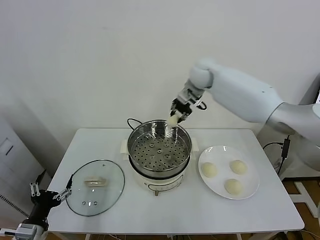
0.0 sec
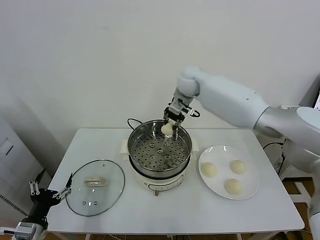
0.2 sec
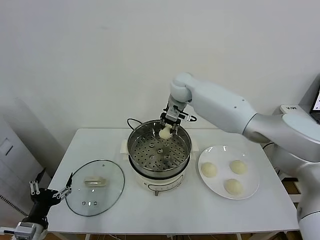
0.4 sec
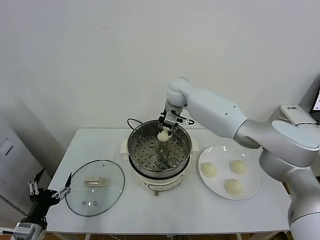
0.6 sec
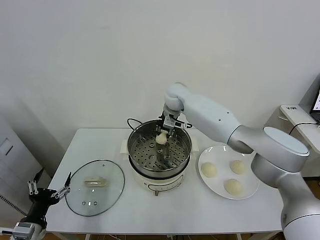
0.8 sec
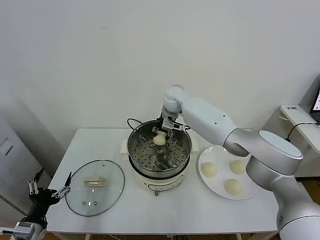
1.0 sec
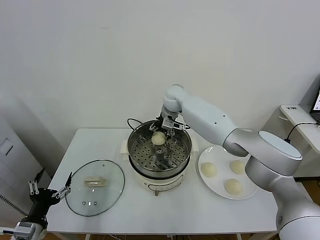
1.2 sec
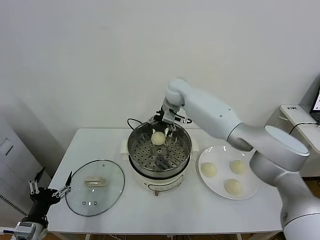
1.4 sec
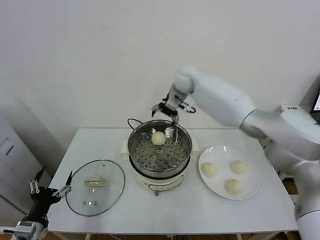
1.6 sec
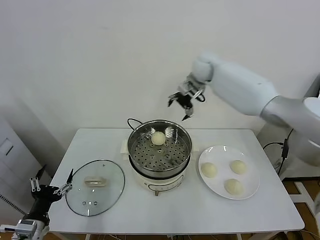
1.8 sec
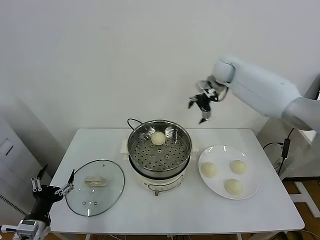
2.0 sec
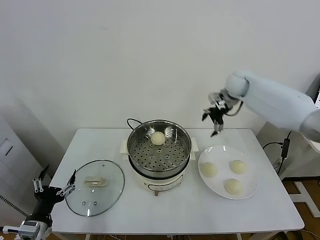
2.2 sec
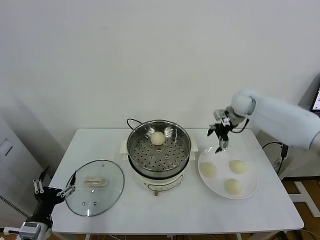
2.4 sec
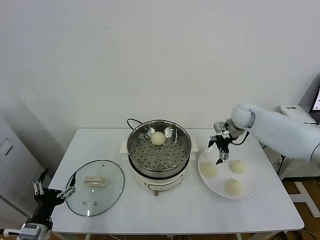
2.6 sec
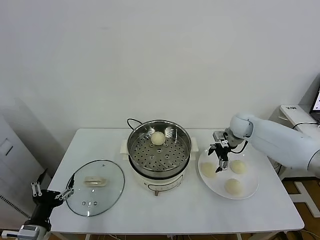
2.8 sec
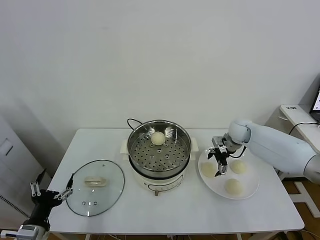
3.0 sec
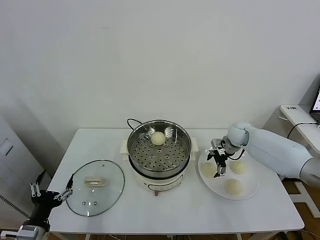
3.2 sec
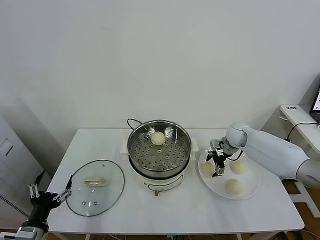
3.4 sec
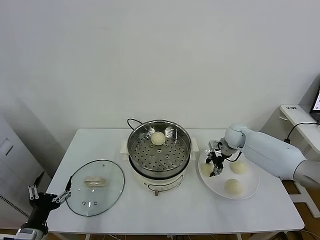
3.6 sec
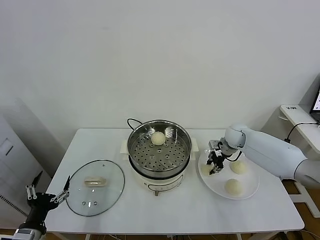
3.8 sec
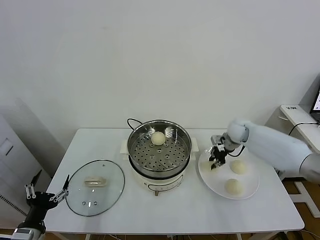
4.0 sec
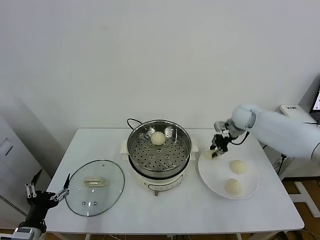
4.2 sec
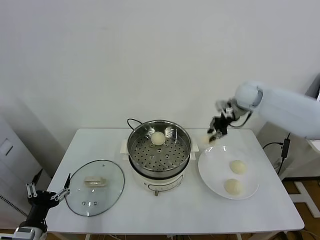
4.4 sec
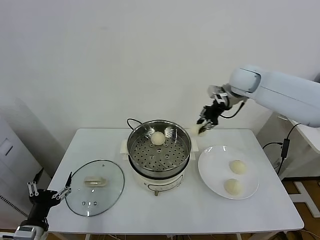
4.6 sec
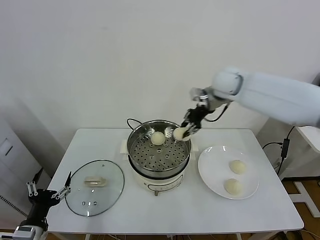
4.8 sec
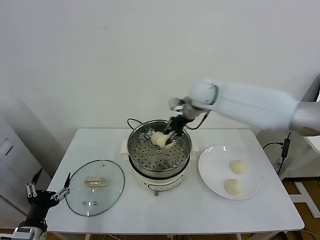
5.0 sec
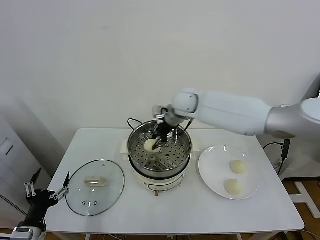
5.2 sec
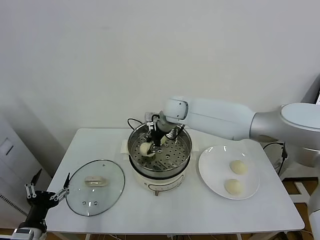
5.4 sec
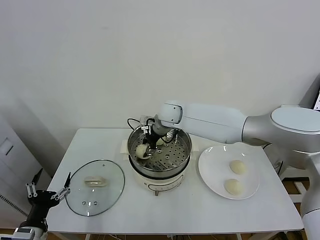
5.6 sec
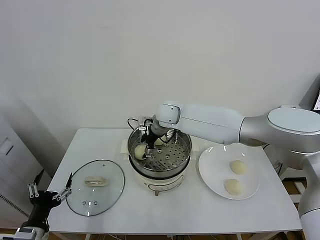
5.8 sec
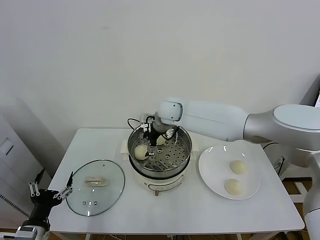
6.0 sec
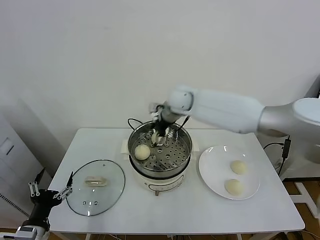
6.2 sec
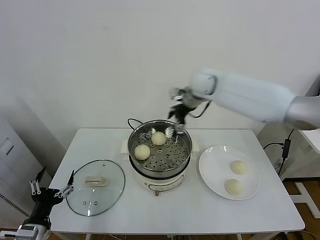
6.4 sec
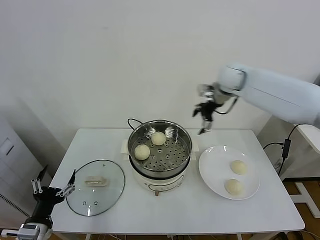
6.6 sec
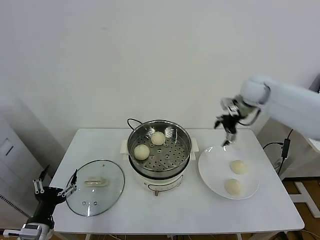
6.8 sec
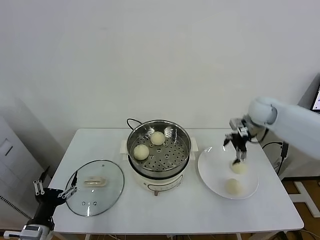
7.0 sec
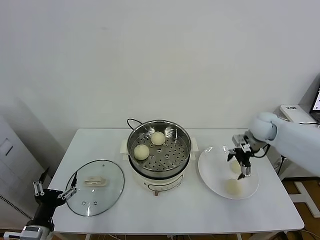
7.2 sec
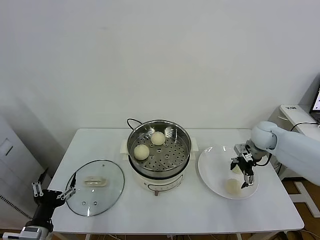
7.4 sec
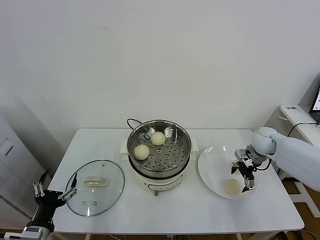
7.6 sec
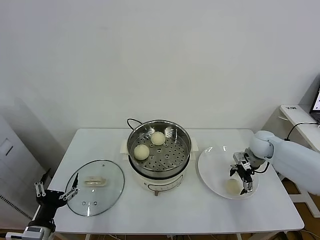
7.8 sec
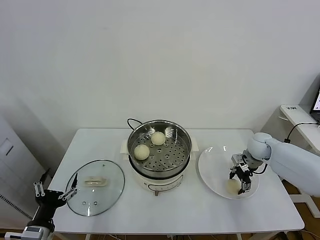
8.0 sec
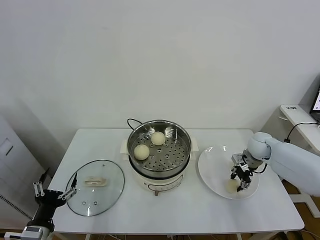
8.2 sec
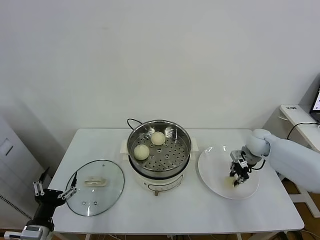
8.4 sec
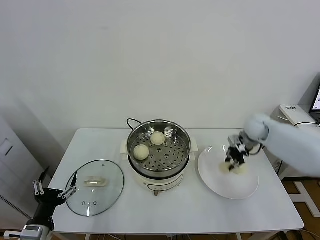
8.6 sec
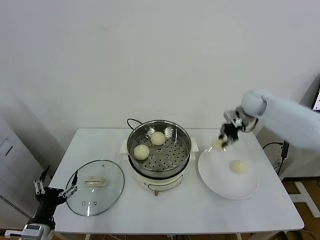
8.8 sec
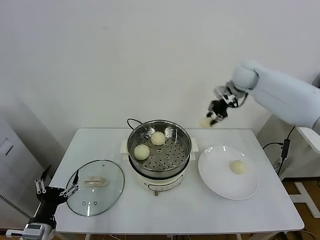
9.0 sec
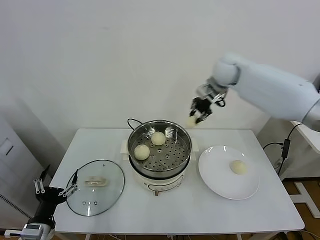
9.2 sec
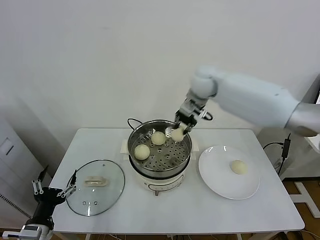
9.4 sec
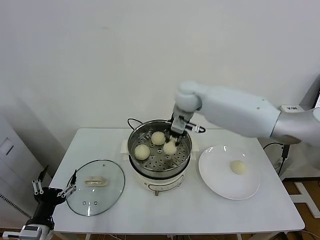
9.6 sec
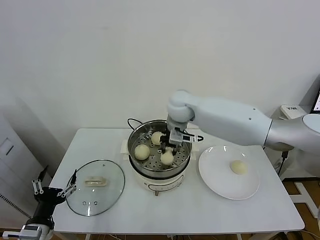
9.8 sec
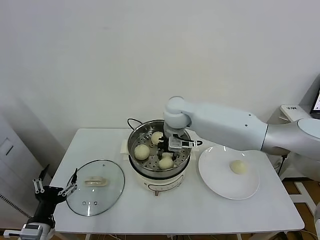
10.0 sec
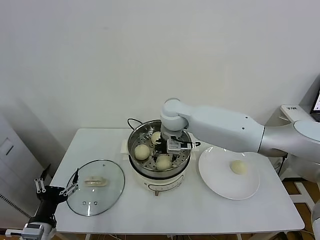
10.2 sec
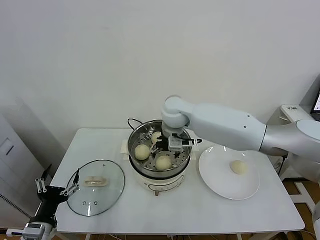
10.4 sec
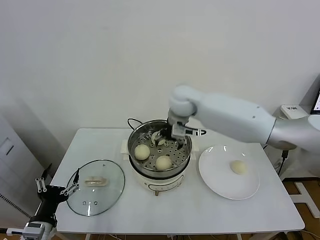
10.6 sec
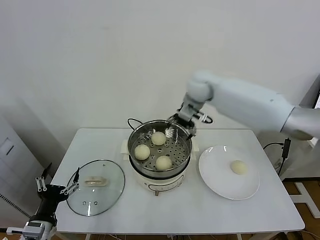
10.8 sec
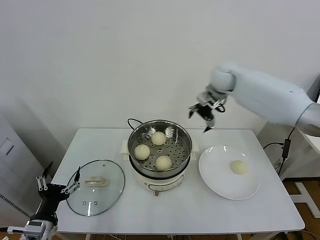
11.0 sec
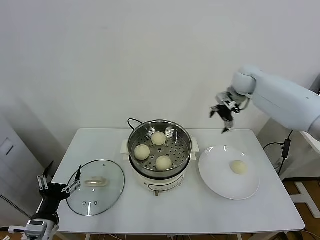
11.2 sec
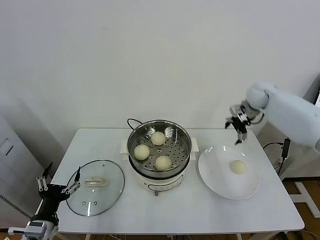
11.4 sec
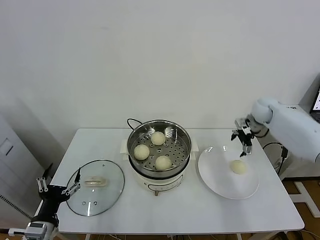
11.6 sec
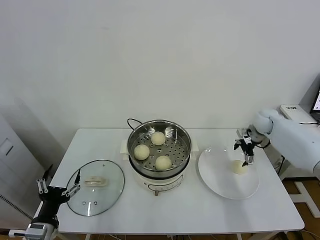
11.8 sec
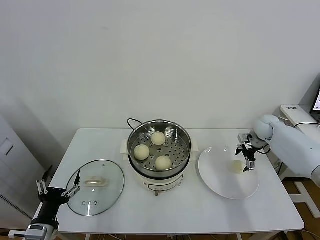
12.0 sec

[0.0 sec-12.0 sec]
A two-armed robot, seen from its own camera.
Task of the whole recording: take steamed baozi put them in steamer.
Step, 0.0 sec to 1.4 sec: Place the baozi on the steamer with right gripper.
Step, 1.6 sec to 3.6 sec: Grasp the baozi in the plate with right gripper.
Step, 3.8 sec to 6.0 sec: Place the baozi on the steamer with right gripper.
Step, 6.2 sec to 8.0 sec: Grasp the baozi in the plate with right gripper.
Step, 8.4 sec to 10.4 sec: Place the baozi on the steamer with right gripper.
0.0 sec to 1.6 sec: The right gripper moves about 10 cm downward and comes back, and opens.
1.6 sec to 3.0 sec: The right gripper travels downward and to the right by about 30 cm.
3.0 sec to 4.4 sec: The right gripper heads upward, covering some 20 cm, and closes.
4.4 sec to 6.0 sec: The right gripper is displaced to the left by about 25 cm, and opens its fingers.
6.0 sec to 7.6 sec: The right gripper goes about 35 cm to the right.
7.6 sec to 9.0 sec: The right gripper is displaced upward, to the left and forward by some 30 cm, and closes up.
9.0 sec to 10.4 sec: The right gripper shifts some 25 cm to the left and backward, and opens its fingers.
10.4 sec to 12.0 sec: The right gripper moves to the right, some 40 cm.

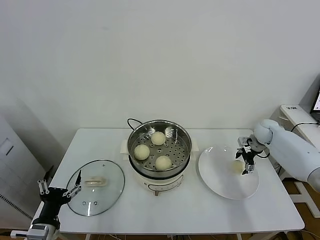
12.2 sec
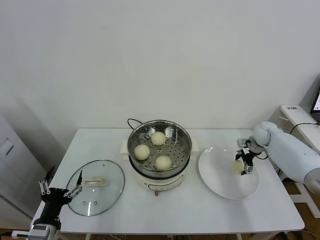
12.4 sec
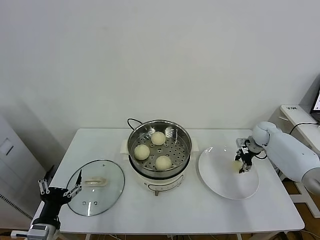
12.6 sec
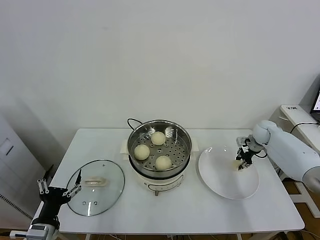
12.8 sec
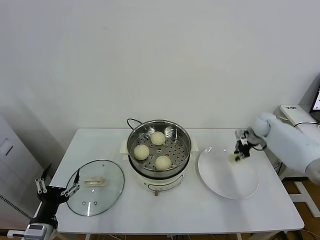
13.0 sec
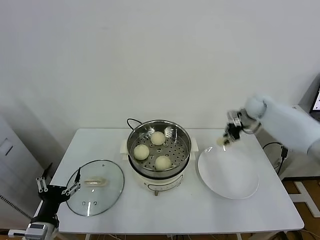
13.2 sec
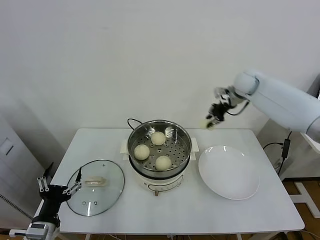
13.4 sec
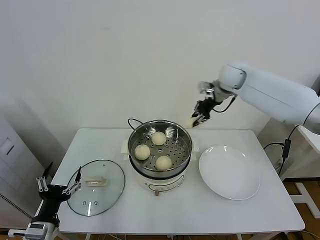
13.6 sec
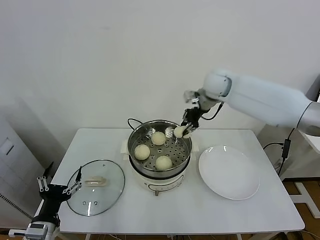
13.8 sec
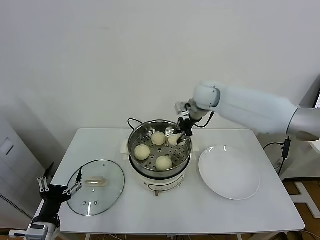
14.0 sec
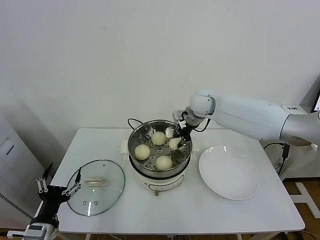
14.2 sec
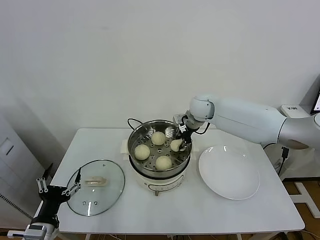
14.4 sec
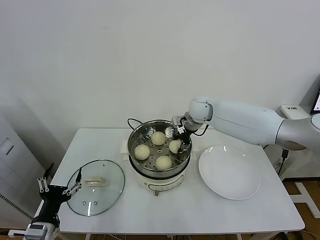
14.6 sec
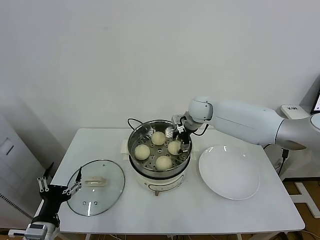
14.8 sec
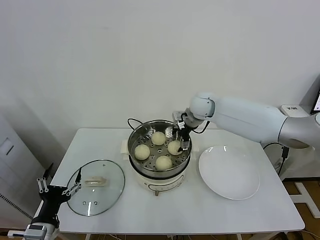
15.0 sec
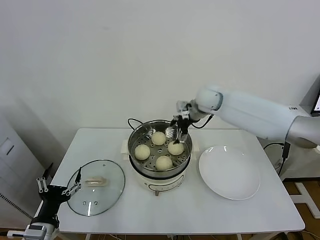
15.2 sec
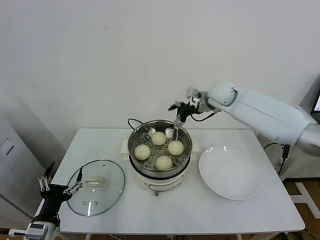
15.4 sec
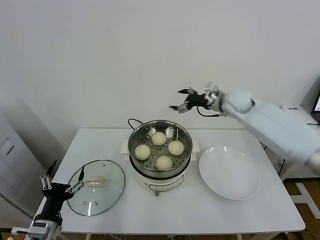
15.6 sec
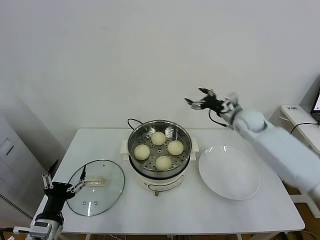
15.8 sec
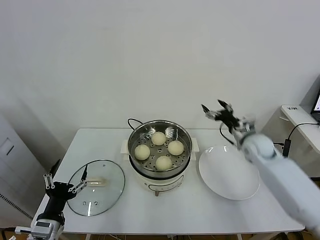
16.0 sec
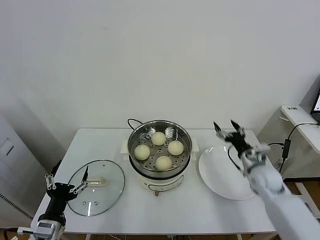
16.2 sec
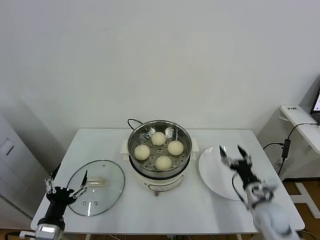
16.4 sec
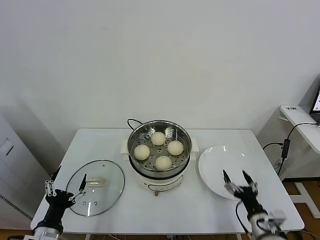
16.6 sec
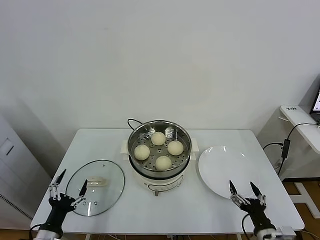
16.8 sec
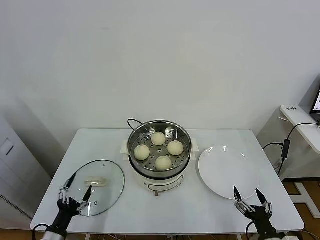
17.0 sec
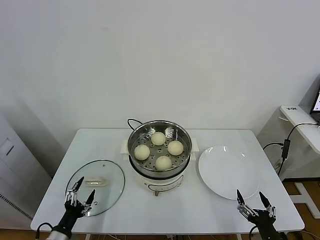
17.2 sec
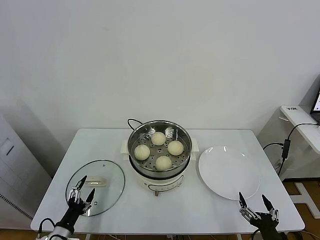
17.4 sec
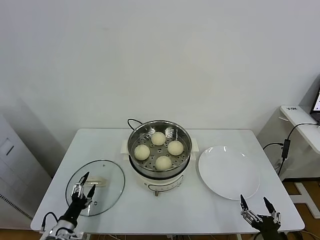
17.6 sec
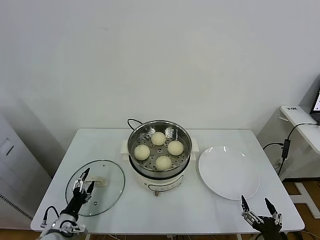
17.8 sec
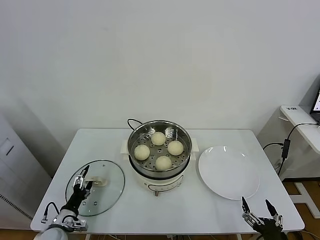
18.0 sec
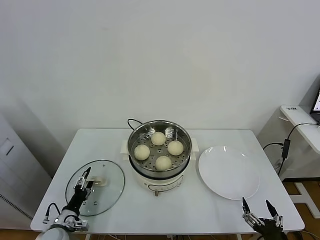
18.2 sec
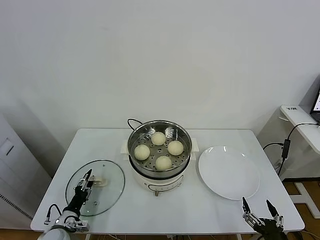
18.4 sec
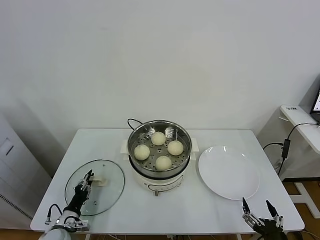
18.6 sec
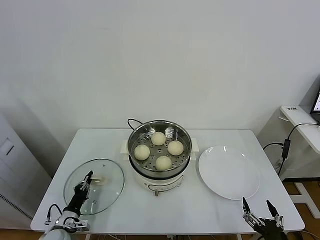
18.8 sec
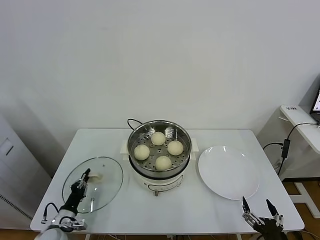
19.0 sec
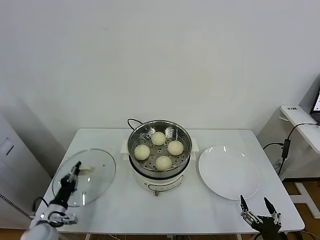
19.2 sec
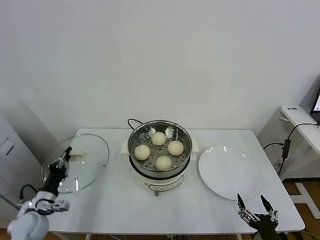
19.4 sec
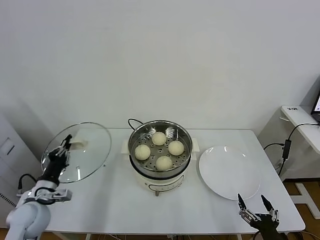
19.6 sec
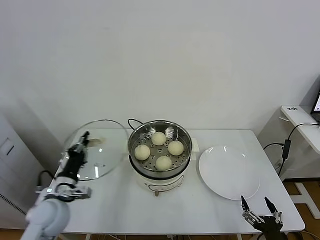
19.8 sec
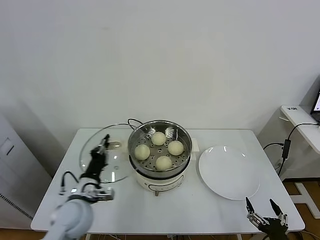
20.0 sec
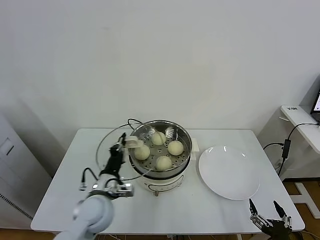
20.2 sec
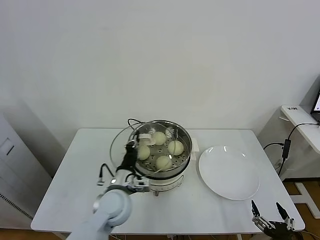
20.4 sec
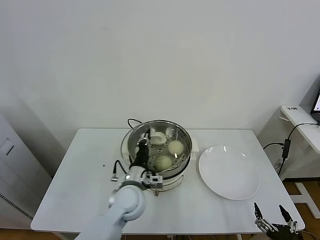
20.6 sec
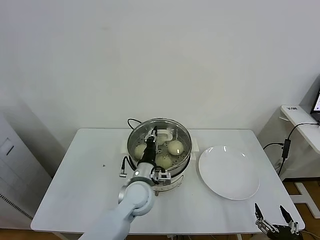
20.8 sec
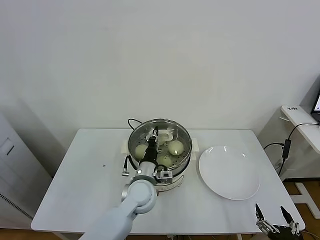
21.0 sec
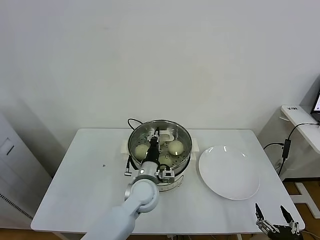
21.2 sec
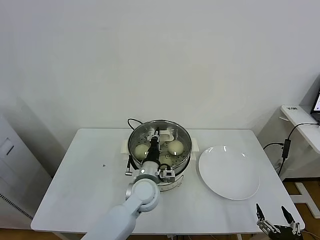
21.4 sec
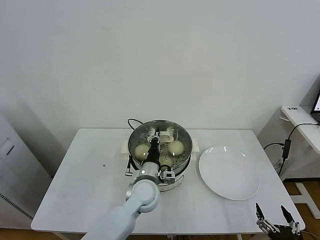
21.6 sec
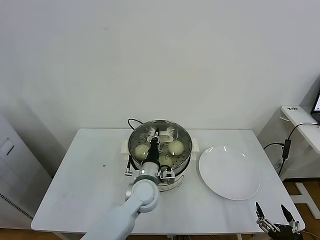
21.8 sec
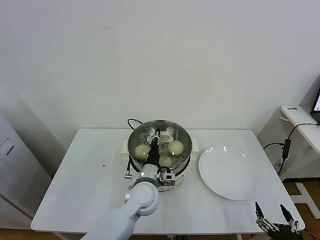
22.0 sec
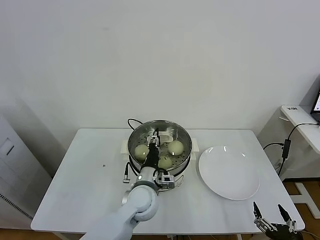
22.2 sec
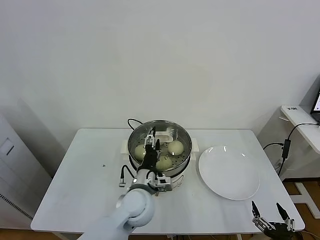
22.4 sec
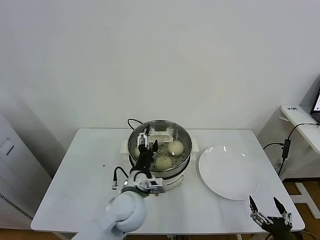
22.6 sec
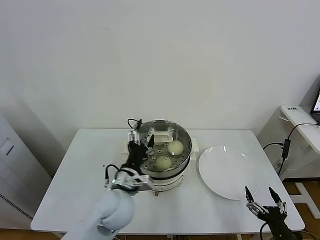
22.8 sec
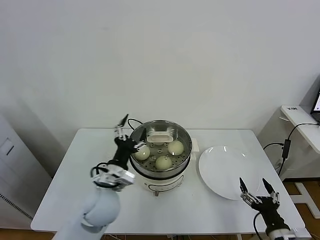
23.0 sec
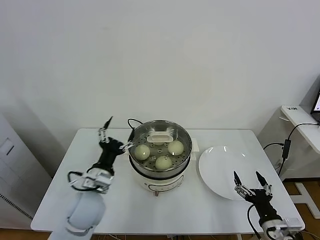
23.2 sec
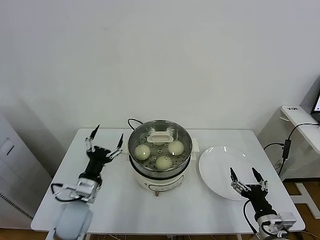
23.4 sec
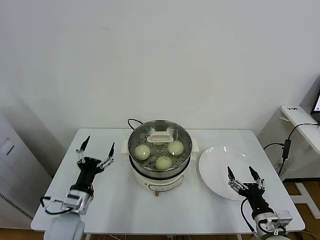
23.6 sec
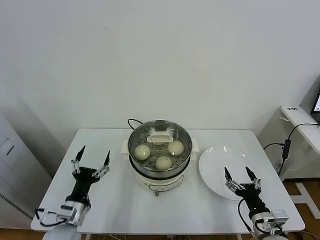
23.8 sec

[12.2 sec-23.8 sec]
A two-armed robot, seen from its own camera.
Task of the whole recording: take steamed baozi put them in steamer.
Step, 13.0 sec to 15.0 sec: Place the baozi on the steamer with right gripper.
Step, 15.2 sec to 18.8 sec: Grasp the pot lid with left gripper.
Step, 19.0 sec to 22.6 sec: Place the pot lid on the steamer with left gripper.
12.2 sec to 13.6 sec: The right gripper is displaced upward and to the left by roughly 30 cm, and closes its fingers.
13.6 sec to 15.0 sec: The right gripper heads downward and to the left, covering about 15 cm, and opens.
15.0 sec to 16.6 sec: The right gripper travels backward, downward and to the right by roughly 50 cm.
16.6 sec to 18.0 sec: The left gripper travels downward and forward by approximately 15 cm. The right gripper moves backward, roughly 15 cm.
18.0 sec to 19.4 sec: The left gripper is displaced upward by roughly 5 cm, and closes up.
19.4 sec to 21.0 sec: The left gripper is displaced to the right by approximately 35 cm.
21.0 sec to 22.4 sec: The left gripper opens.
22.4 sec to 23.8 sec: The right gripper moves forward, some 10 cm. The left gripper heads to the left, covering approximately 20 cm.
